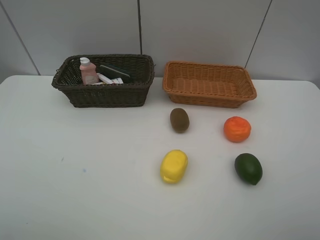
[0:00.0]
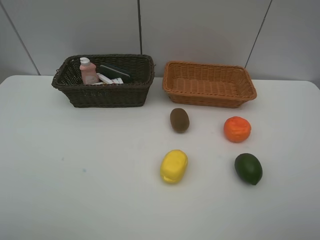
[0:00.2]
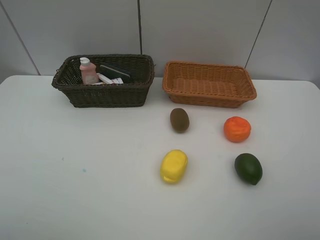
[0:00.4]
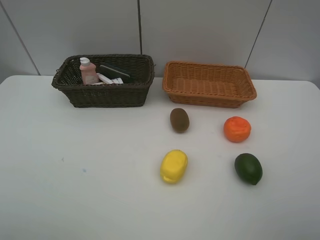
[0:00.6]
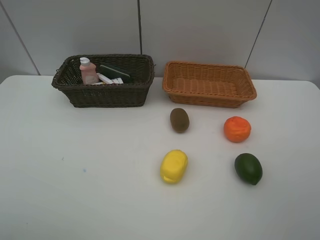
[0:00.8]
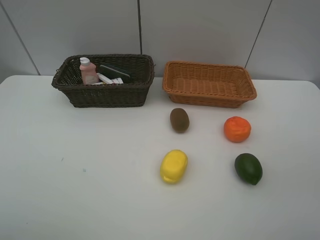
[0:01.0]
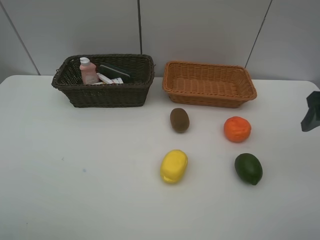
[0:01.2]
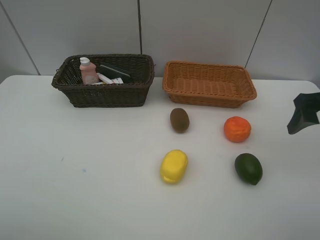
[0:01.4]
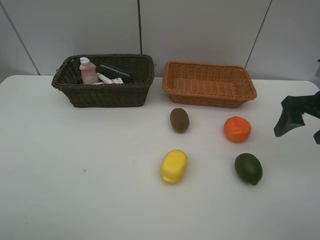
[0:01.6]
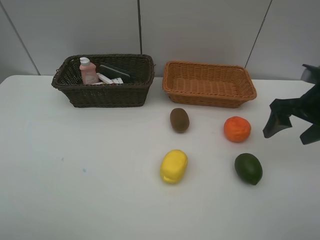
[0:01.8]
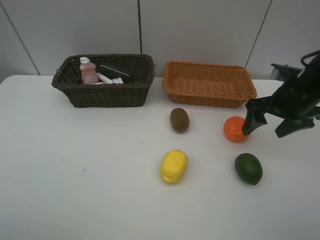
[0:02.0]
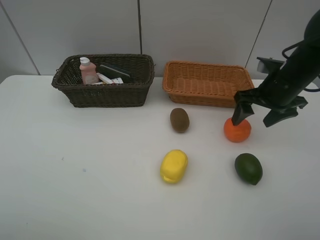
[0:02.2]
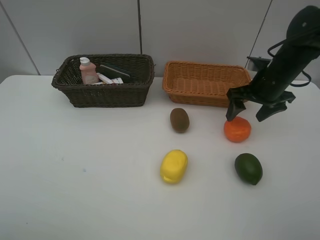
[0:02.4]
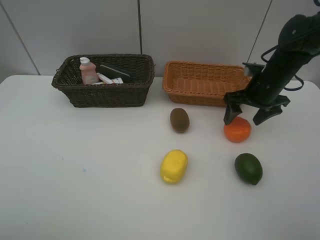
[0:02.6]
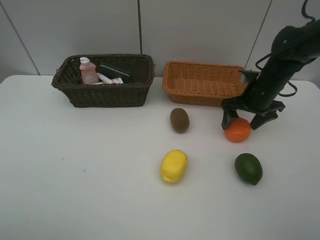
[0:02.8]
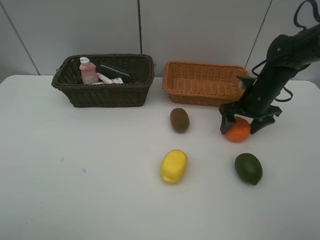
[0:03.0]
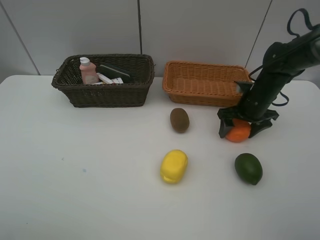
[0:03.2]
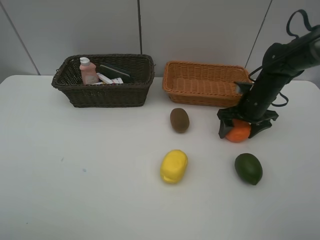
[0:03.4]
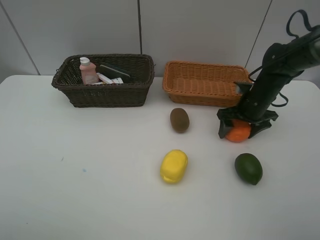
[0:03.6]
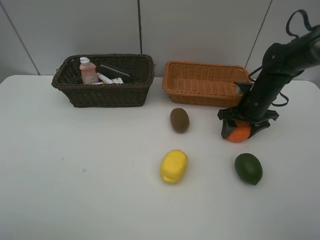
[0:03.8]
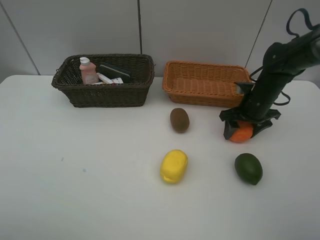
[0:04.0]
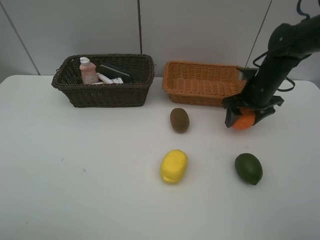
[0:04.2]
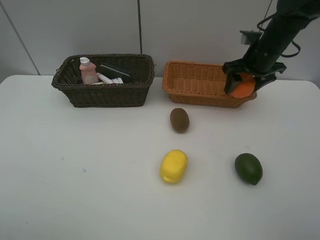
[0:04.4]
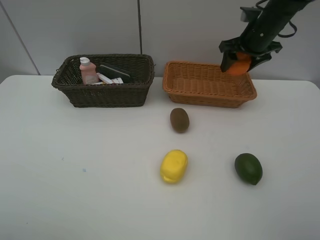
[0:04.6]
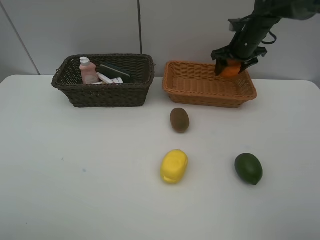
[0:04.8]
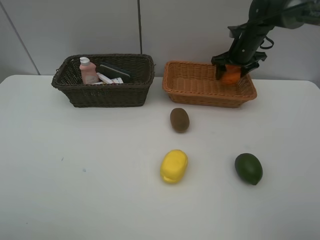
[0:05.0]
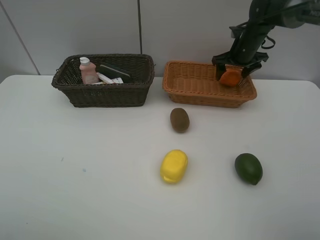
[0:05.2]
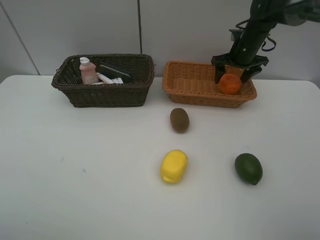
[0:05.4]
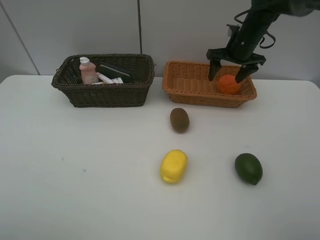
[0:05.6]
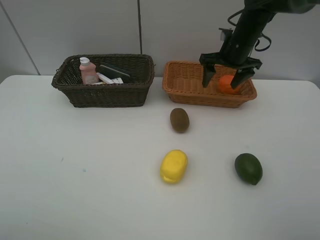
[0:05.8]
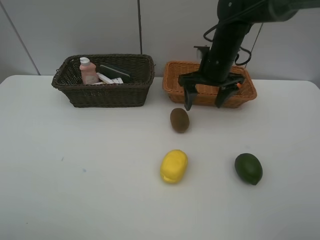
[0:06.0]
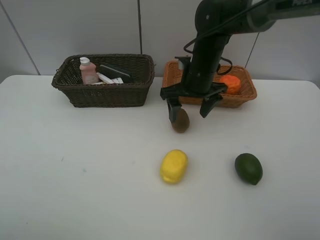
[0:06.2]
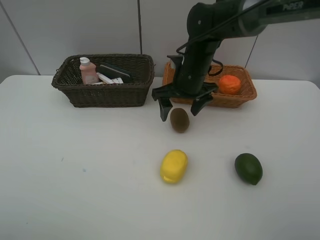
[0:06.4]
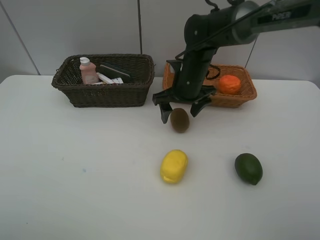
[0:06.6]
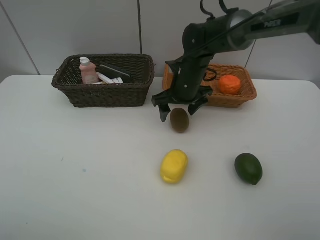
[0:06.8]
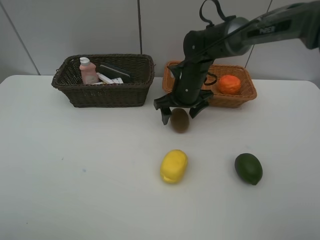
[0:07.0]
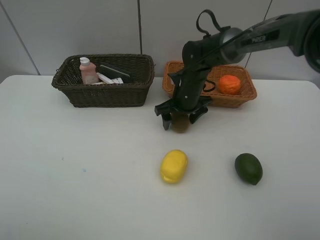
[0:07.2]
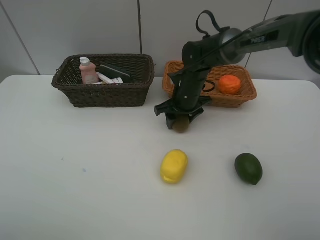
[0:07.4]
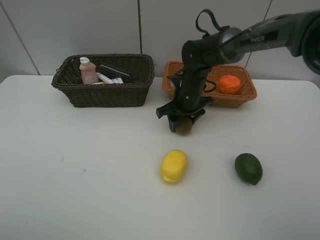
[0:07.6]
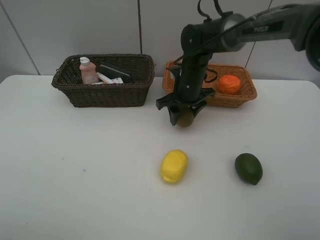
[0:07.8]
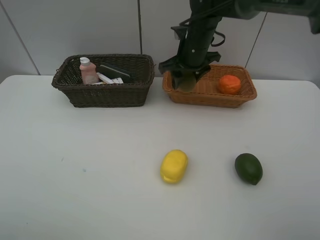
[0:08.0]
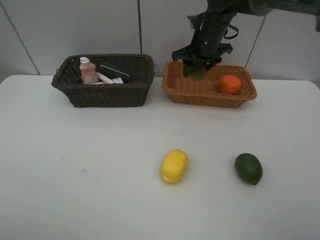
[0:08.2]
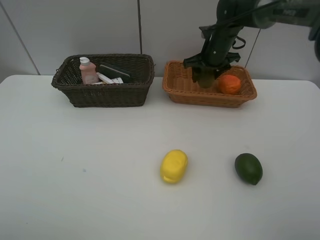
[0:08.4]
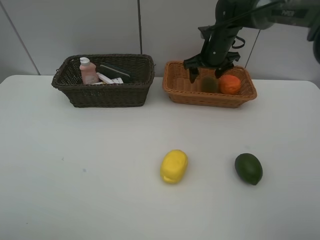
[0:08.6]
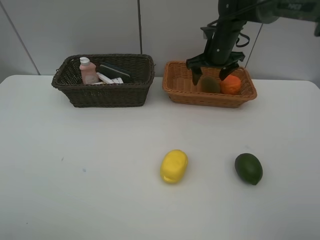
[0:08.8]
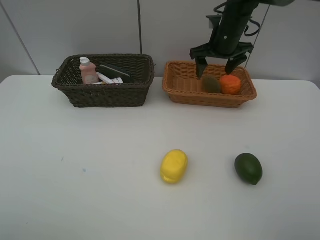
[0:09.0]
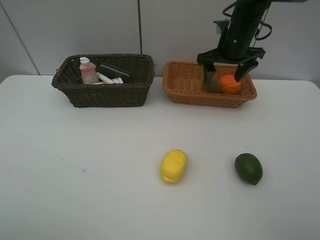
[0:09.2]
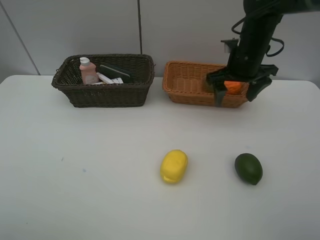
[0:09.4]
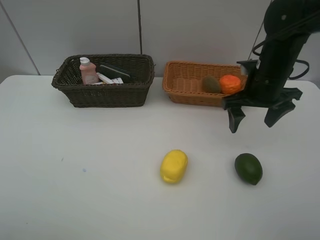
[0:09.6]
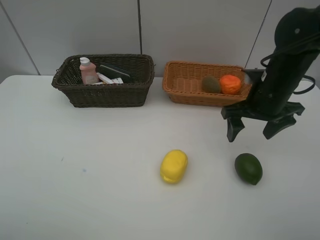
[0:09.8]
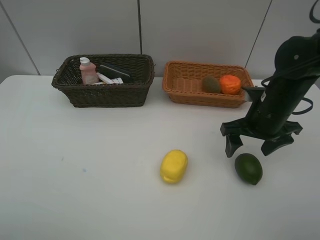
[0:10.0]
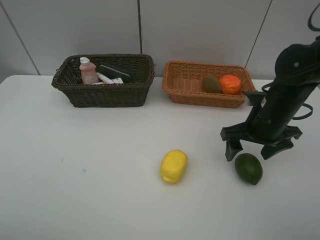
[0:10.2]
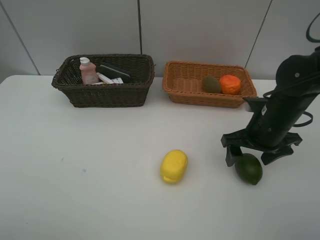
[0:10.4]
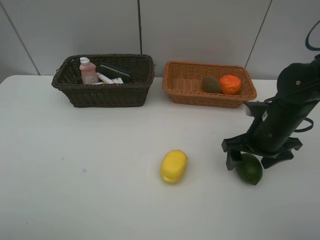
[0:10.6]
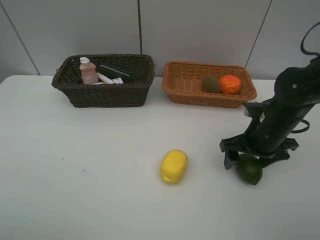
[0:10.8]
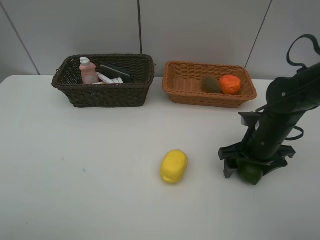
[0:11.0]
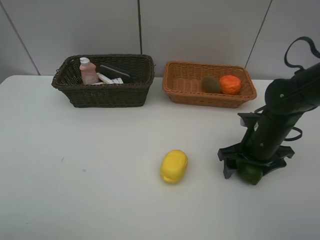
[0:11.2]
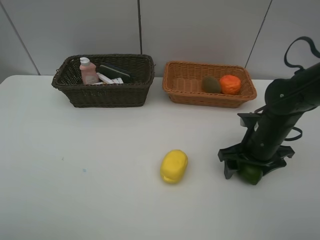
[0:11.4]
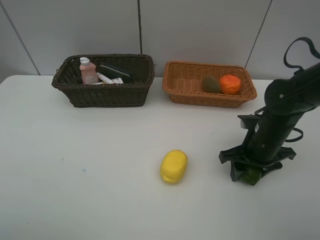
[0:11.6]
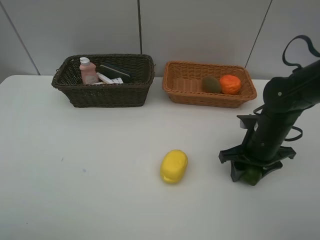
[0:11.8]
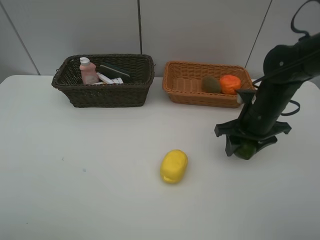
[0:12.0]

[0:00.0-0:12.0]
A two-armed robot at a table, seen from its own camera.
Task of the whole recording: Place multiple objects separately in different baskets.
Step, 0:00.0 to 0:04.2: Pick up the orange with right gripper.
Step, 0:04.4 to 0:05.4: Place the orange in the light basket with right gripper.
Step, 0:05.6 to 0:07.8: Pick up kiwi with right gripper.
Step, 0:08.0 to 0:08.6: Place the kiwi in the light basket with right gripper.
Step, 0:08.8 to 0:11.8: Pick up the lime with right gripper.
0:00.0 to 0:01.6: The right gripper moves forward, about 25 cm.
0:01.6 to 0:03.0: The right gripper is displaced forward, downward and to the left by roughly 15 cm.
0:03.0 to 0:04.4: The right gripper is displaced upward and forward by some 10 cm, and closes its fingers.
0:04.4 to 0:06.0: The right gripper travels to the left by approximately 10 cm, goes forward and returns, approximately 10 cm each way, and opens.
0:06.0 to 0:07.6: The right gripper is displaced downward by about 10 cm, and closes up.
0:07.6 to 0:09.0: The right gripper moves upward, to the right and forward, approximately 15 cm, and opens its fingers.
0:09.0 to 0:10.4: The right gripper shifts roughly 20 cm backward and downward.
0:10.4 to 0:12.0: The right gripper closes up.

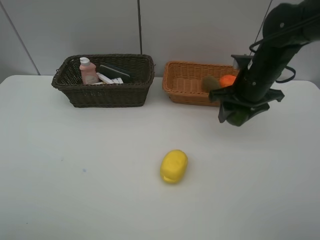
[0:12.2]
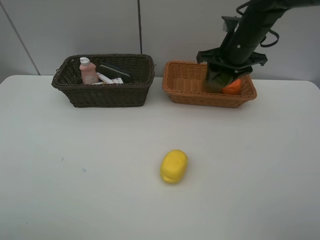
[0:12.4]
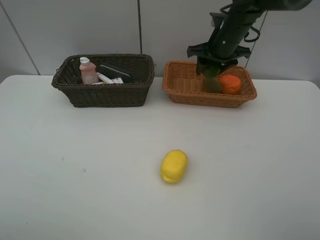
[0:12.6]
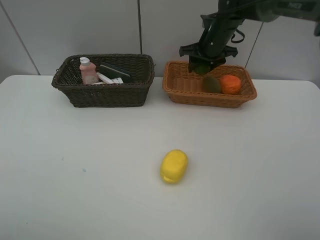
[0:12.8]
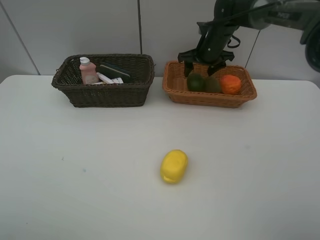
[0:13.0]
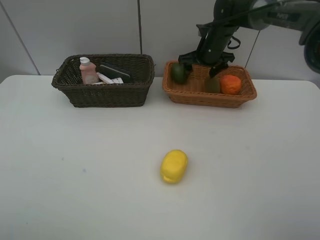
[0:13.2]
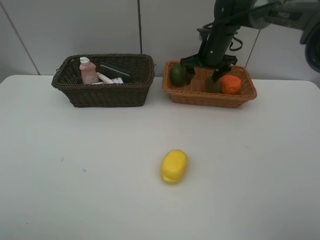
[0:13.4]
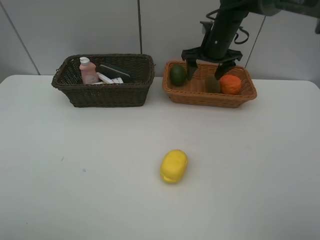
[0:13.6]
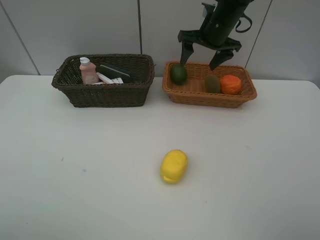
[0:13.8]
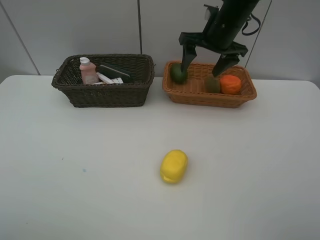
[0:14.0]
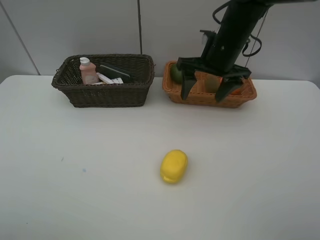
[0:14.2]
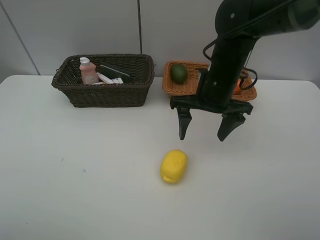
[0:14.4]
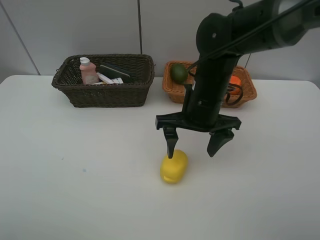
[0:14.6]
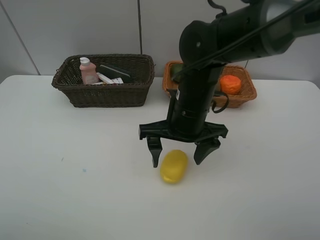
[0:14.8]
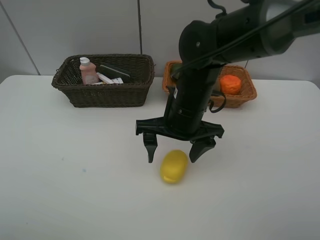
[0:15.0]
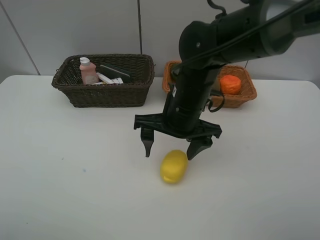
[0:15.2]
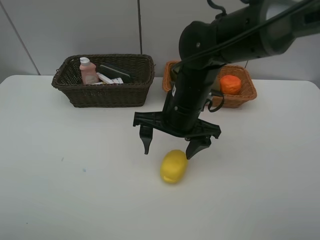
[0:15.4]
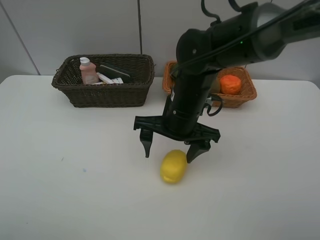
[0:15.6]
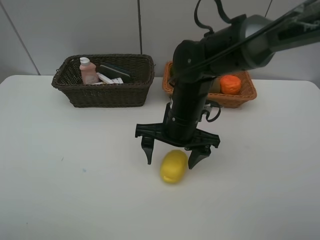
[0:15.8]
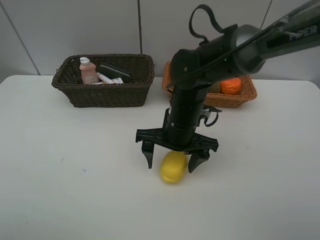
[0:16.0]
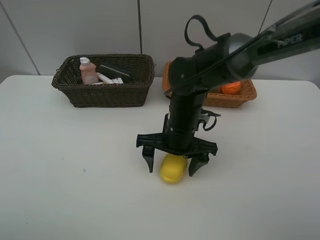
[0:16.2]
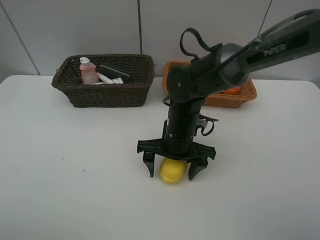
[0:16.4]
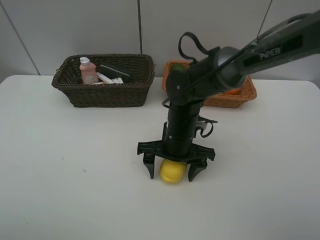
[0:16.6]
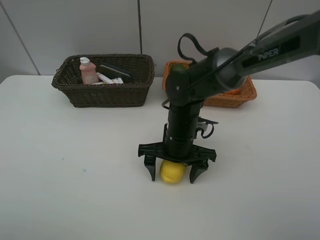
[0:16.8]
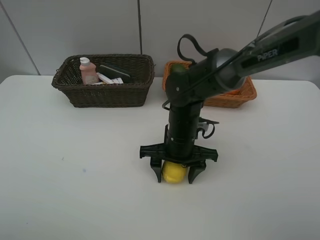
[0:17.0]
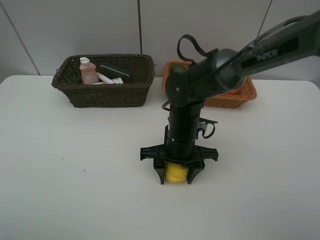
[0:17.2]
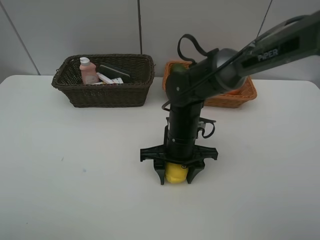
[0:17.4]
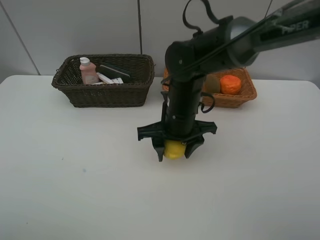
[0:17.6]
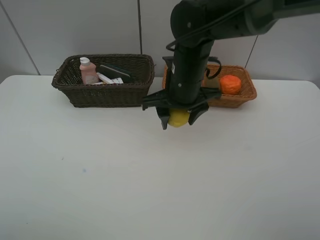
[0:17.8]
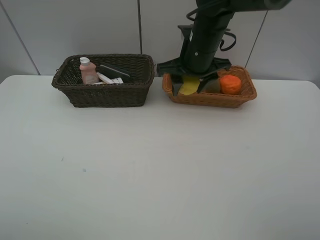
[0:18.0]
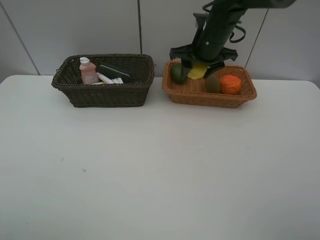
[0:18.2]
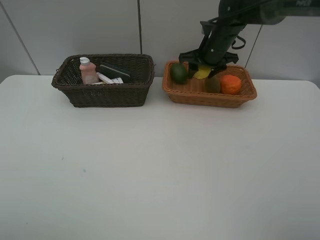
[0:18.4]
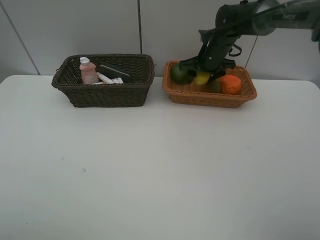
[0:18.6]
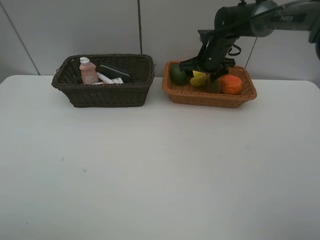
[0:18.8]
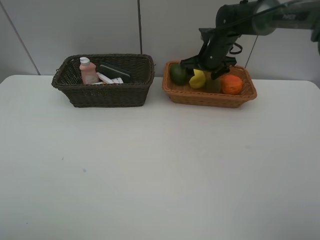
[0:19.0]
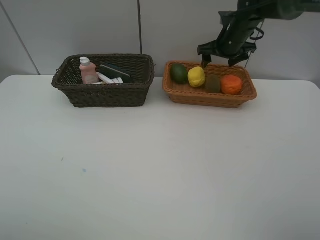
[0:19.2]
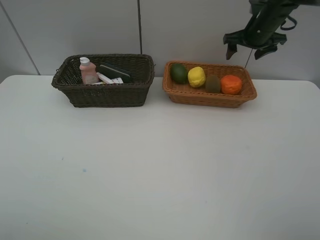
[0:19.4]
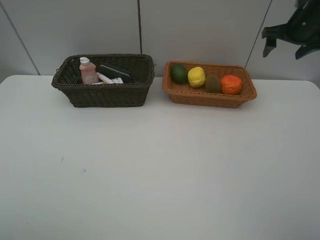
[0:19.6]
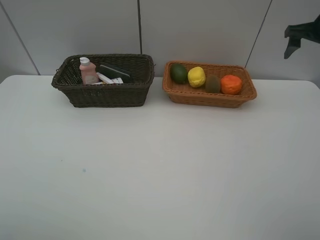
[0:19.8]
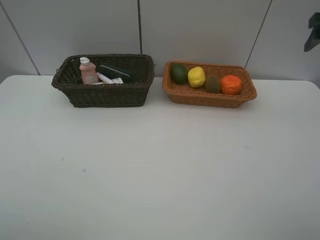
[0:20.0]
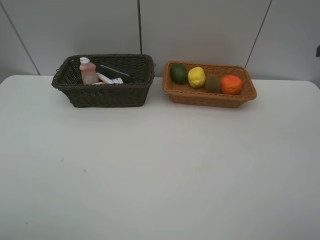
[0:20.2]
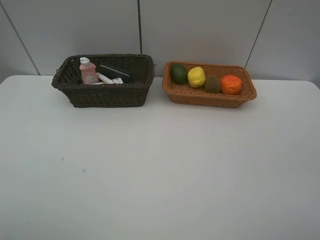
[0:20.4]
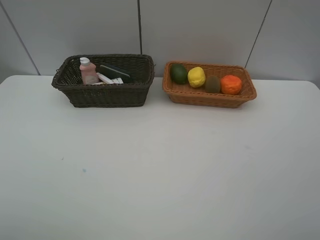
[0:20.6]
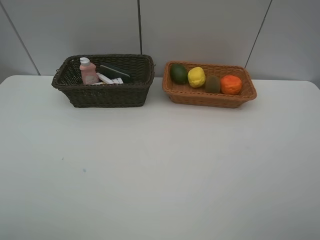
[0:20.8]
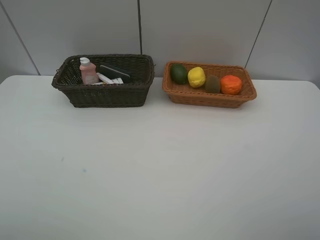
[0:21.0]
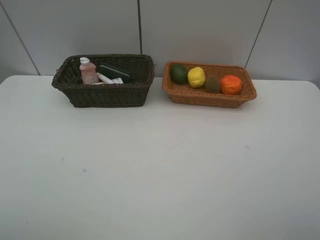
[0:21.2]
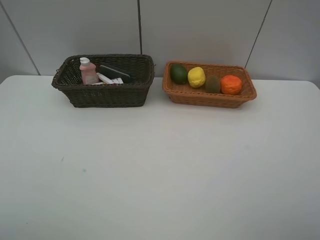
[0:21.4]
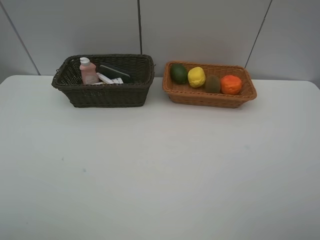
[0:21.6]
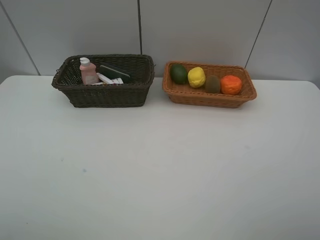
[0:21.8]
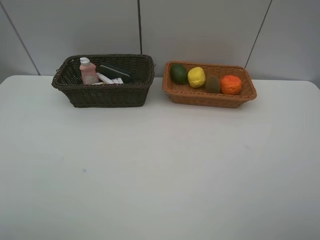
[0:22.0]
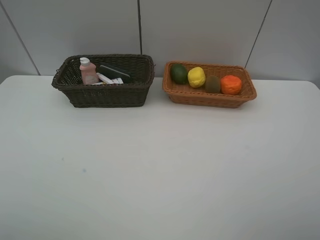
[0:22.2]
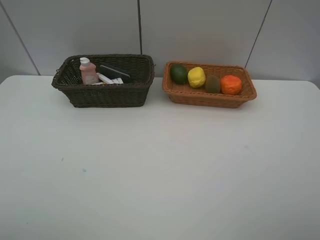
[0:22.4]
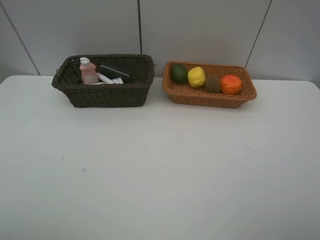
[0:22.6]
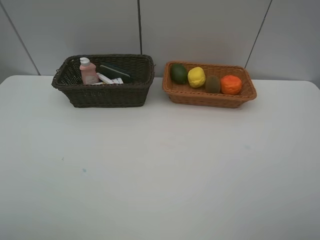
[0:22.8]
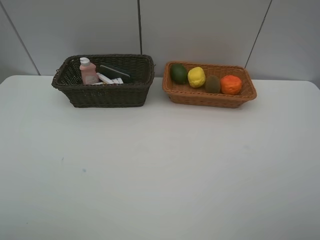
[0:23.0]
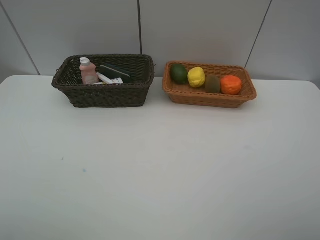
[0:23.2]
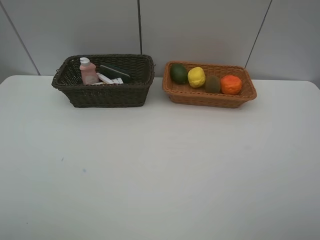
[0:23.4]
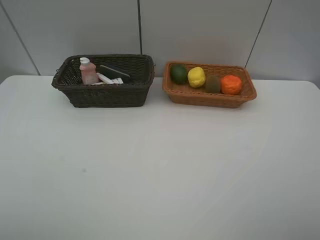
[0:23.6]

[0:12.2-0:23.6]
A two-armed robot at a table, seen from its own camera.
Task of the whole recording: Place multiple objects separately in different baskets.
Step, 0:12.2 to 0:13.0: Place the lime in the light basket with right gripper.
Step, 0:13.2 to 0:17.4: Pick up the lemon with right gripper.
Step, 0:17.6 to 0:19.0: Place the lemon in the light basket with right gripper.
0:12.2 to 0:13.6: The right gripper travels forward by approximately 15 cm, and opens.
0:13.6 to 0:15.0: The right gripper goes roughly 25 cm backward and to the left.
0:15.0 to 0:16.4: The right gripper travels downward by approximately 5 cm.
0:16.4 to 0:17.8: The right gripper goes approximately 10 cm upward and forward, and closes up.
0:17.8 to 0:19.4: The right gripper is displaced to the right and forward by some 25 cm, and opens up.
0:19.4 to 0:20.8: The right gripper is displaced backward by approximately 50 cm.
0:22.2 to 0:23.6: Neither gripper changes place.
